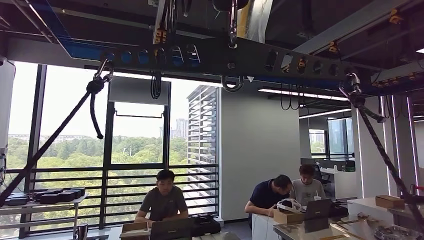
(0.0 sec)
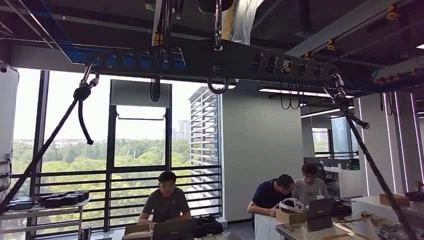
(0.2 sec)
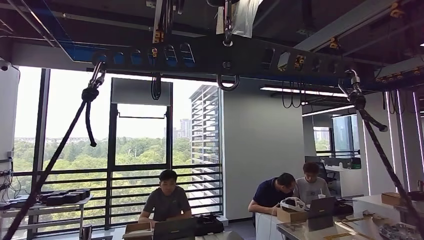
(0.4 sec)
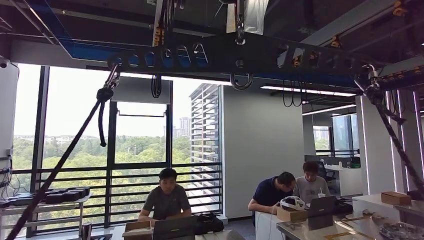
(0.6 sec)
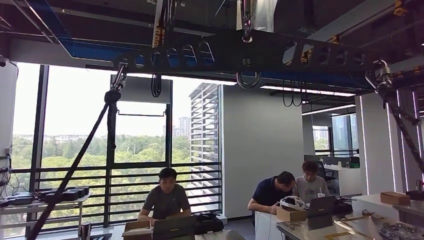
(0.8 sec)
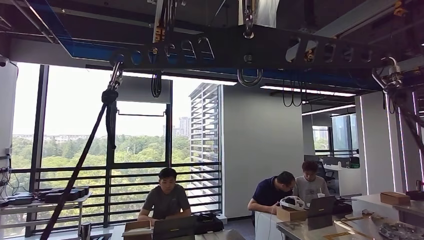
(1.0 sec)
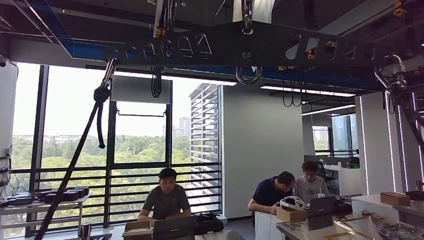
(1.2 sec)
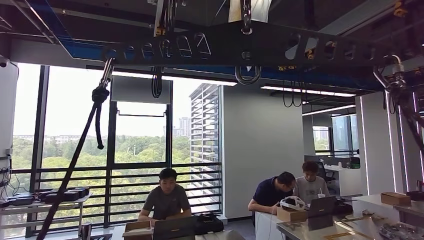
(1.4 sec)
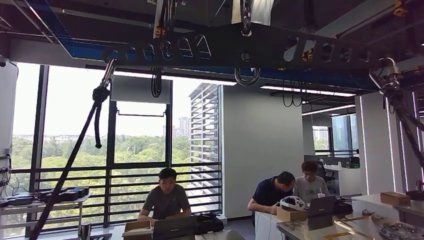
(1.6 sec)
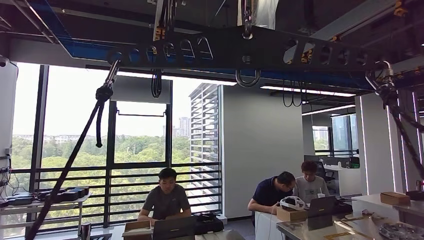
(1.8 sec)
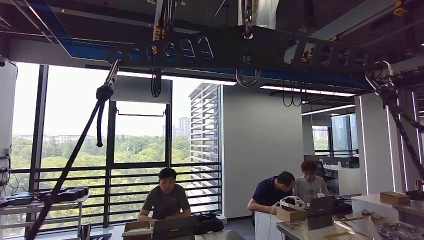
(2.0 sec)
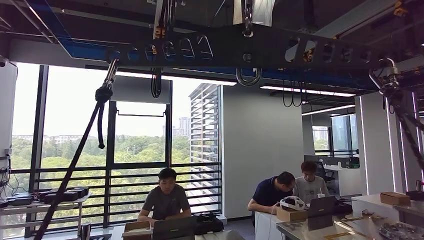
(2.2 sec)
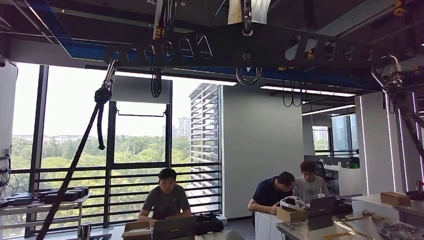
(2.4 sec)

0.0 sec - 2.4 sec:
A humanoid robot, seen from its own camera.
Step, 0.0 sec - 2.4 sec: Return to the initial position at the shelf.
1.2 sec - 2.4 sec: The left hand moves to the left, about 5 cm. The right hand is displaced backward and downward by approximately 20 cm.
